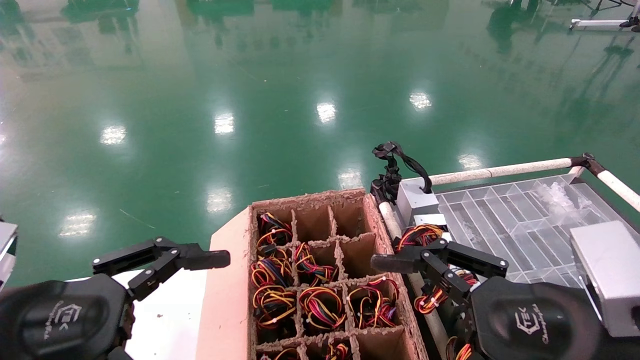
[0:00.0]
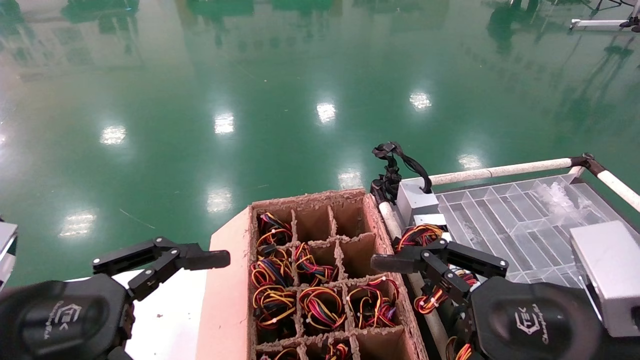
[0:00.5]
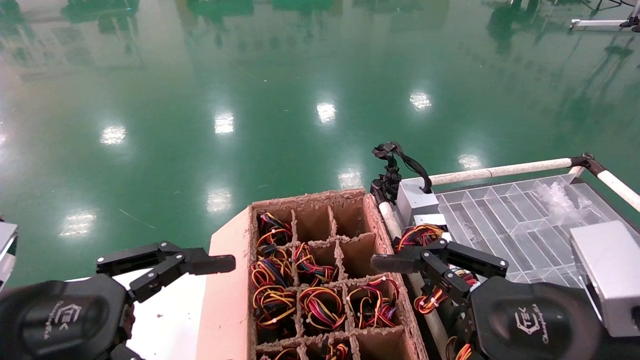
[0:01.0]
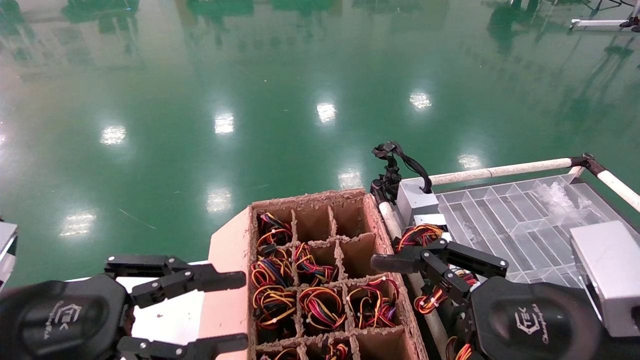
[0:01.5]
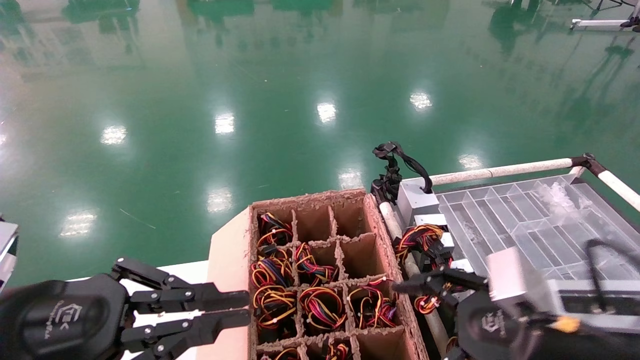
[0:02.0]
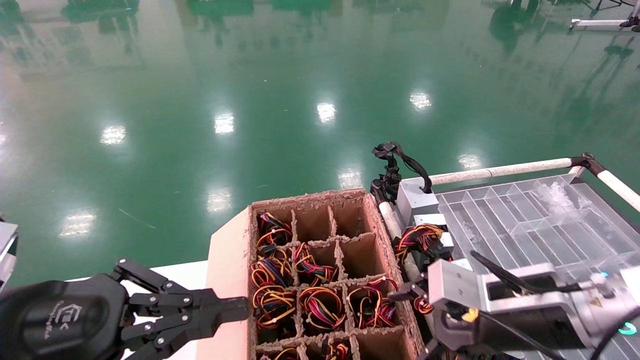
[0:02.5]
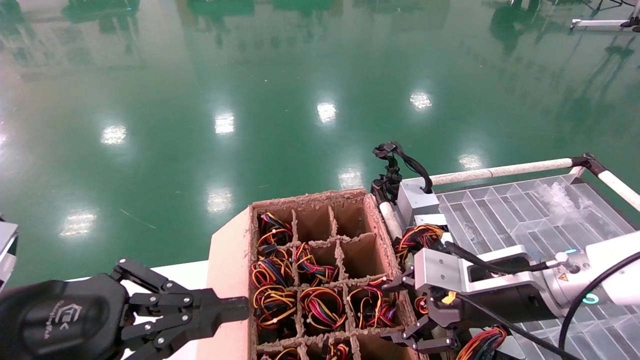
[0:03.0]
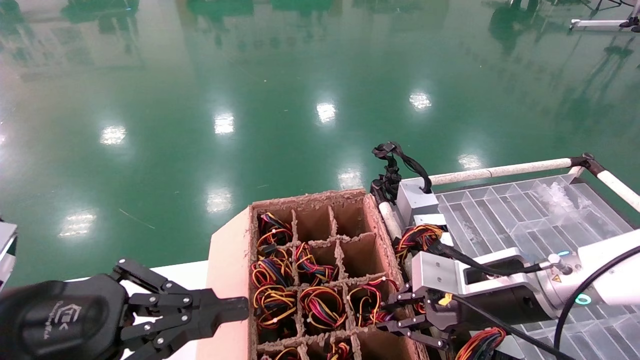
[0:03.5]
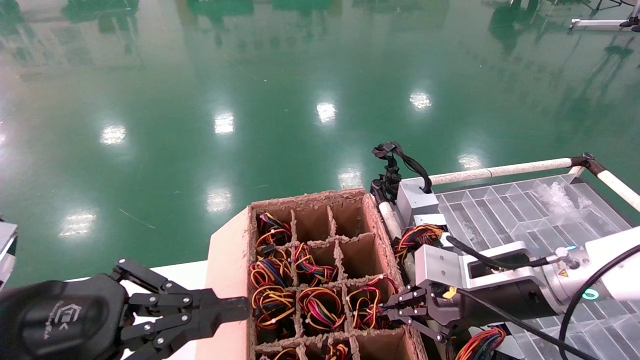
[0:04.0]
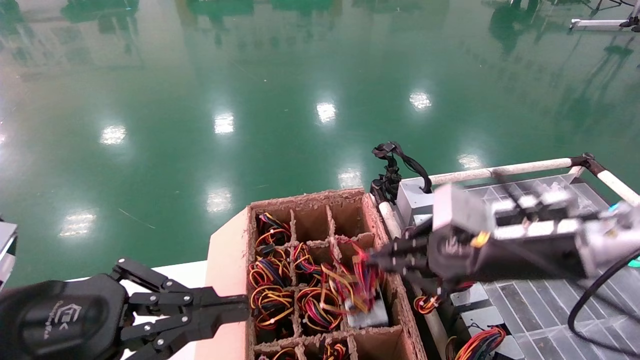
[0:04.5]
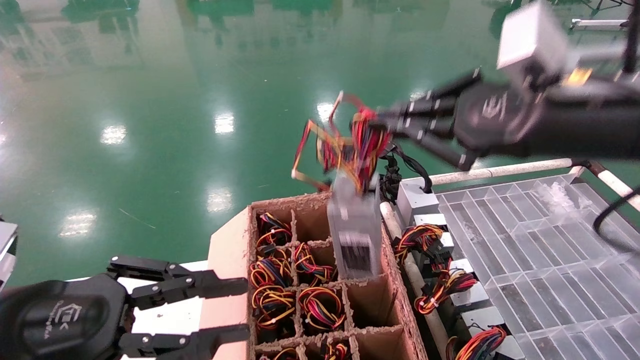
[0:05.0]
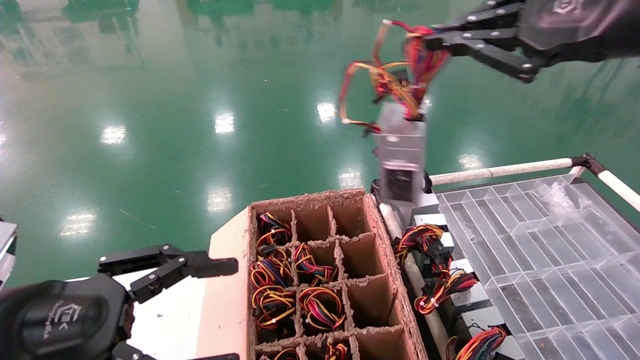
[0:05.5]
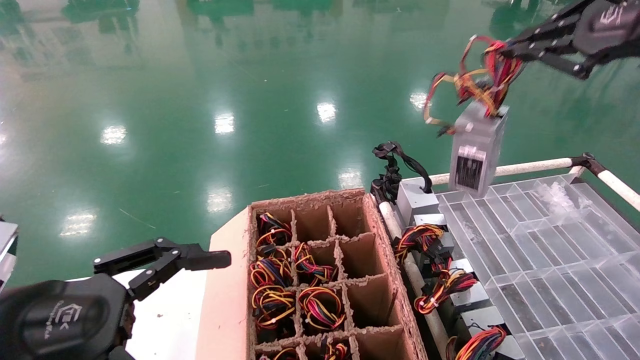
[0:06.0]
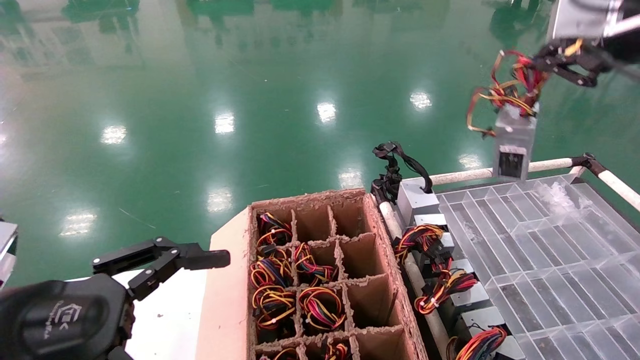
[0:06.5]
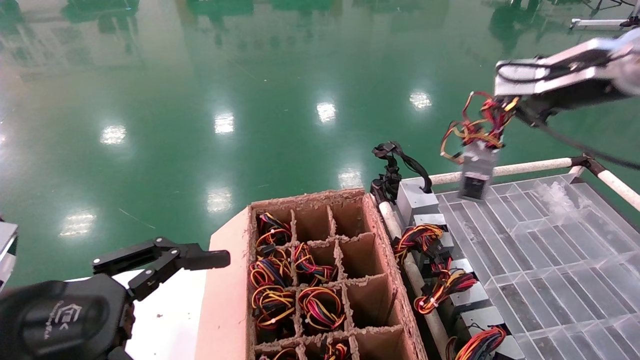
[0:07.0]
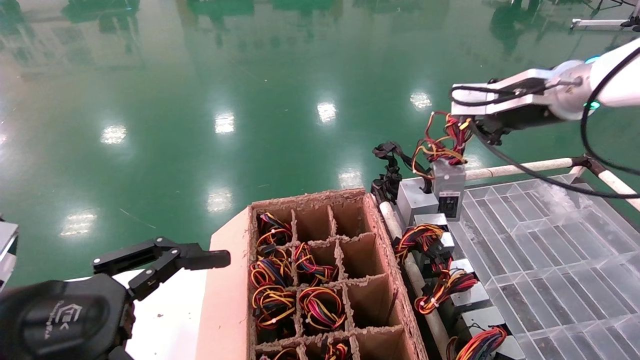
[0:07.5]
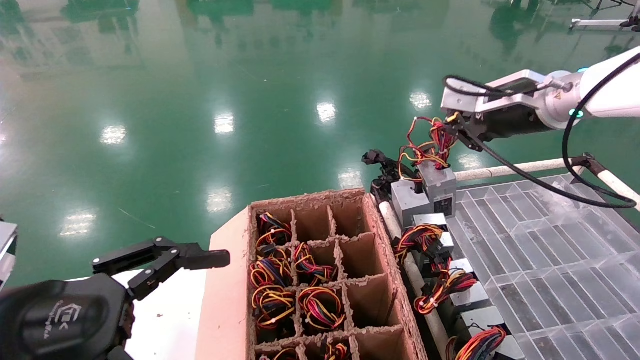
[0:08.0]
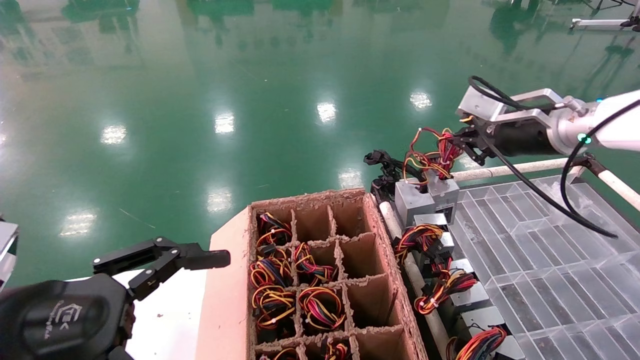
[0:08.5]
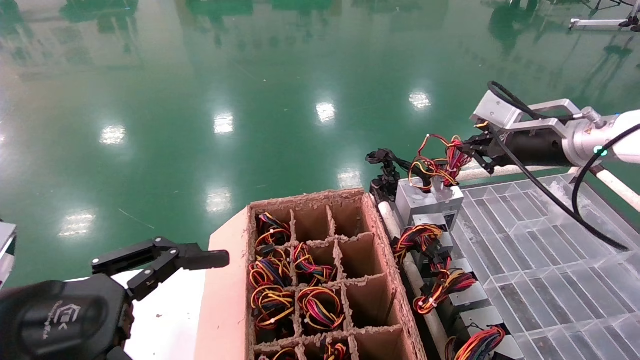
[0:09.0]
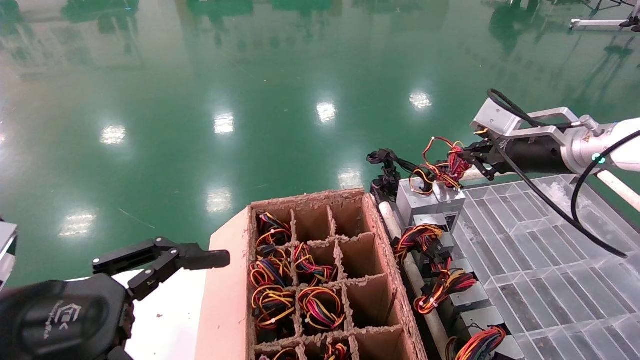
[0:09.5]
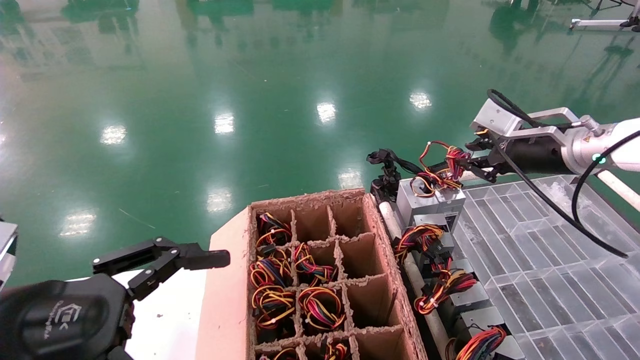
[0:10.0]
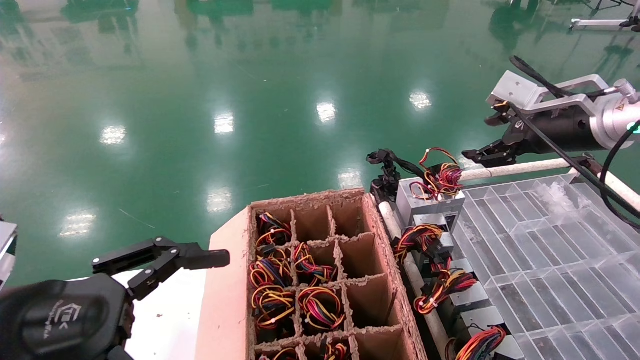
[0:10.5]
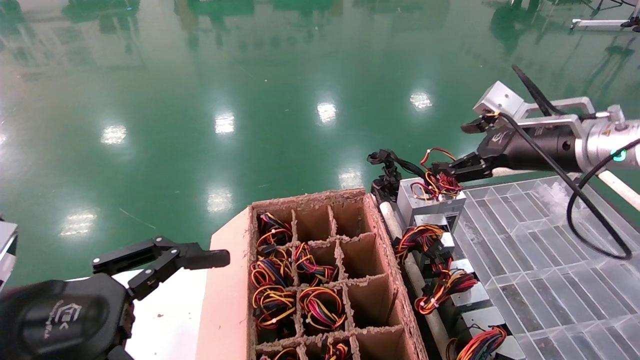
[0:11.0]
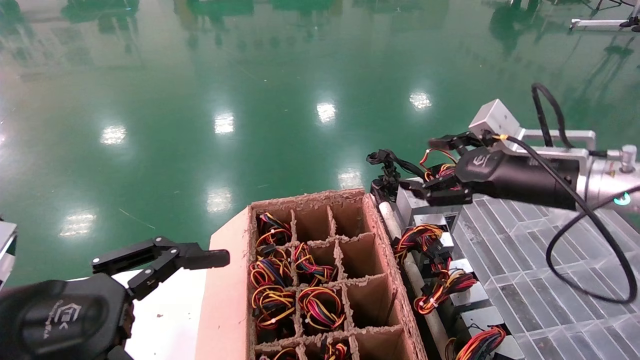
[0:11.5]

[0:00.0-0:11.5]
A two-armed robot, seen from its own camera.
Step, 0:02.5 to 0:04.0: Grab and lift the power supply from the large box.
Step, 0:04.5 to 0:09.5: Place the power supply on the operating table.
0:00.0 to 0:02.0: The left gripper closes, while the right gripper travels forward by about 5 cm.
0:02.0 to 0:04.0: The right gripper heads forward, covering about 10 cm, and closes.
0:04.0 to 0:06.0: The right gripper travels upward by about 30 cm; the left gripper opens up.
0:06.0 to 0:07.5: The right gripper shifts approximately 15 cm forward, downward and to the left.
0:07.5 to 0:09.5: The right gripper heads downward, covering about 10 cm.
0:09.5 to 0:11.5: The right gripper heads backward, covering some 5 cm, and opens its fingers.

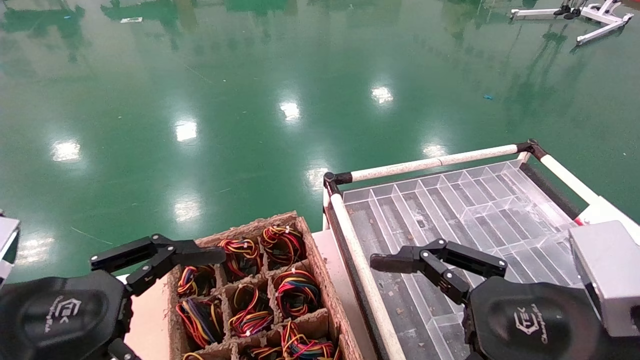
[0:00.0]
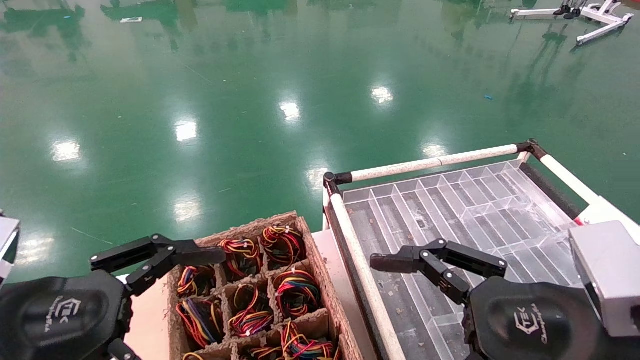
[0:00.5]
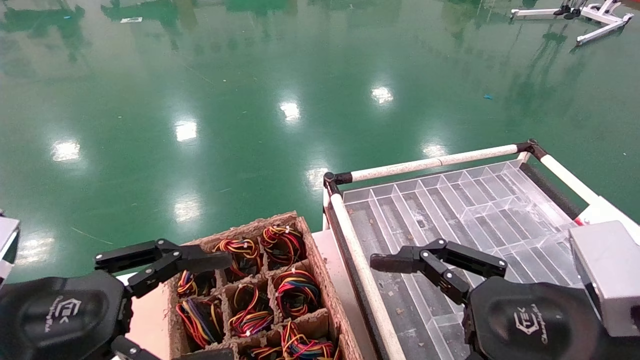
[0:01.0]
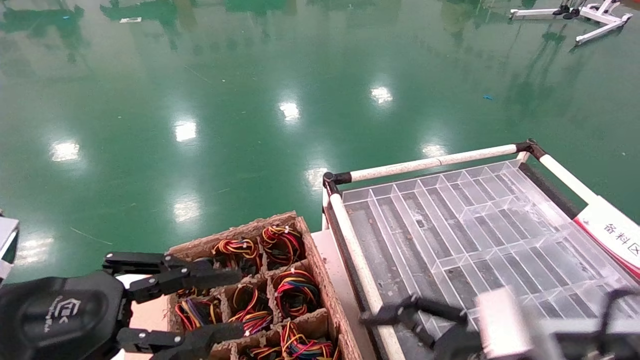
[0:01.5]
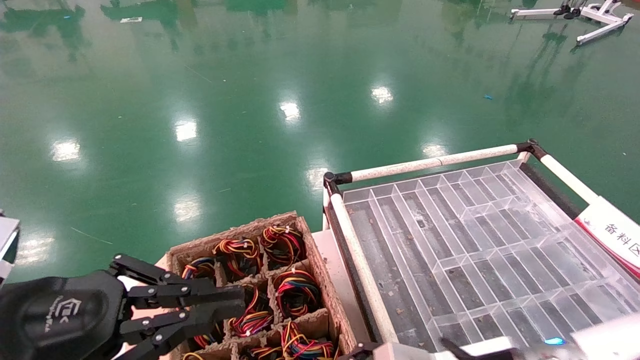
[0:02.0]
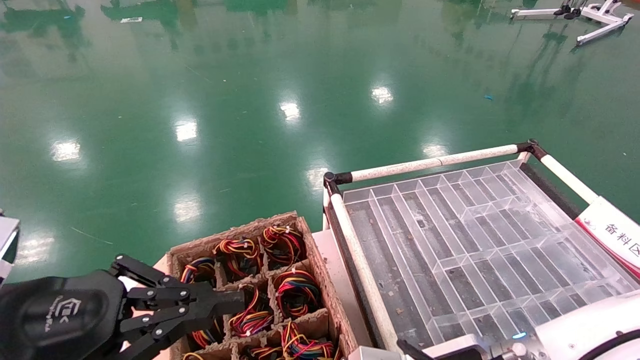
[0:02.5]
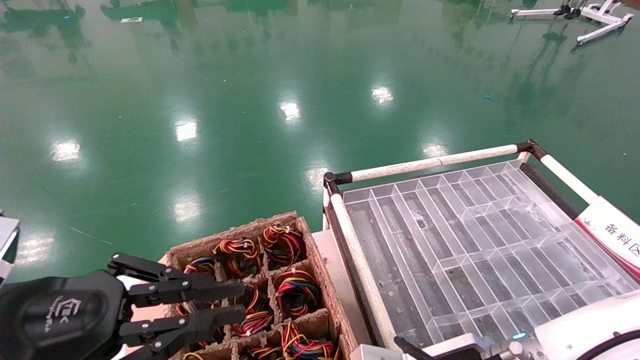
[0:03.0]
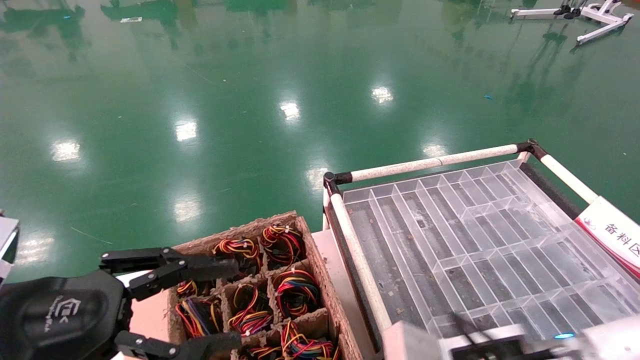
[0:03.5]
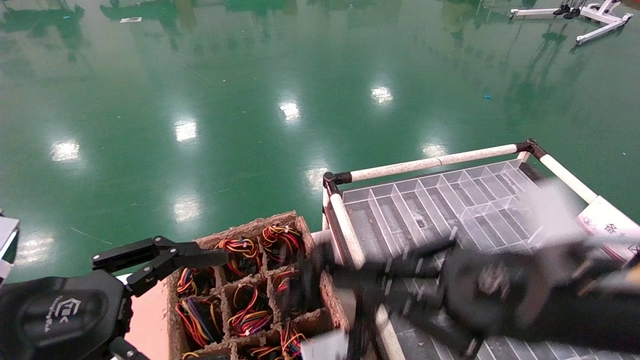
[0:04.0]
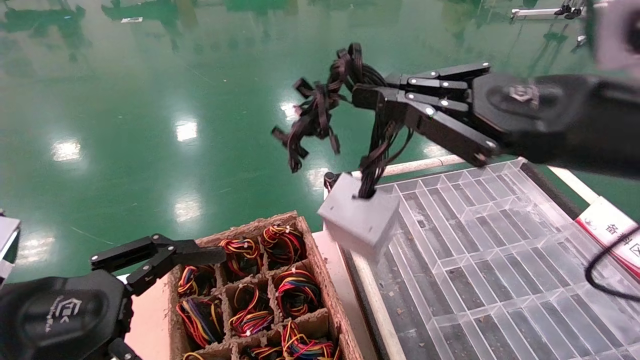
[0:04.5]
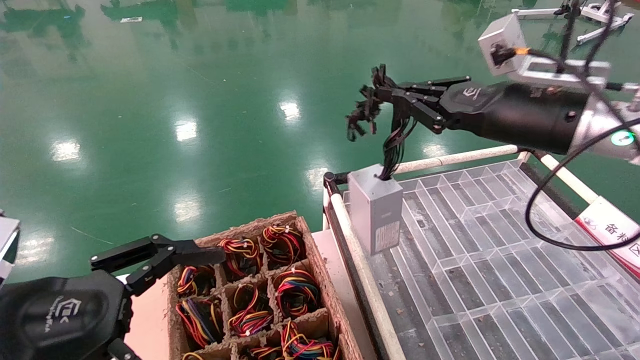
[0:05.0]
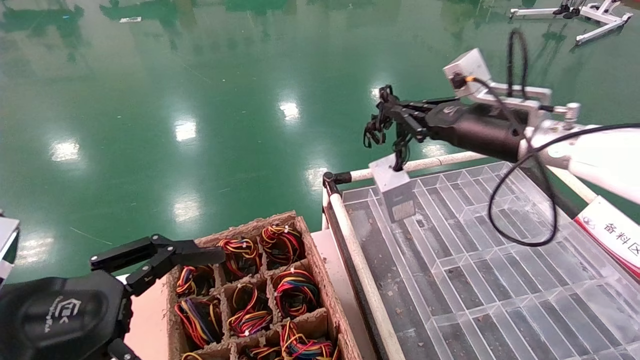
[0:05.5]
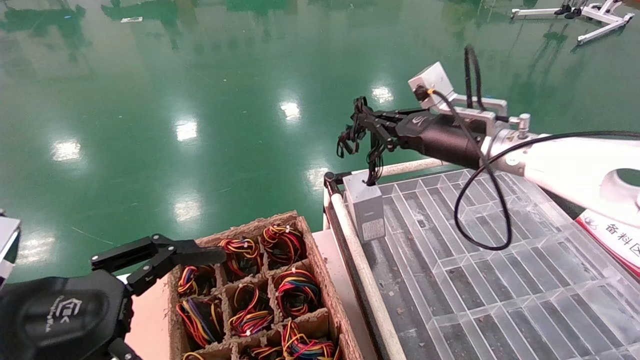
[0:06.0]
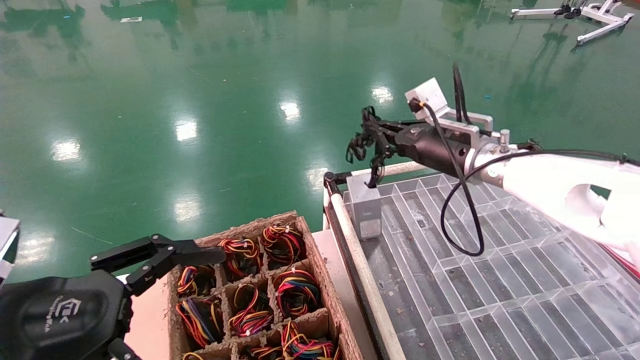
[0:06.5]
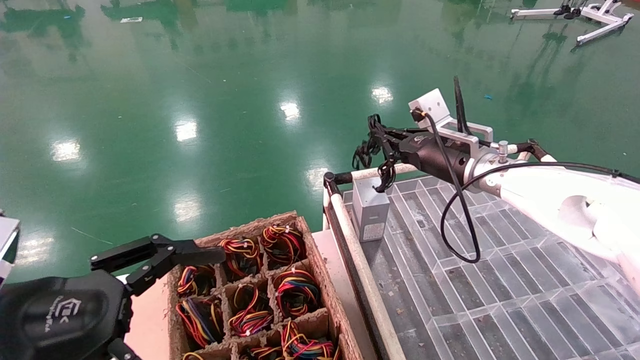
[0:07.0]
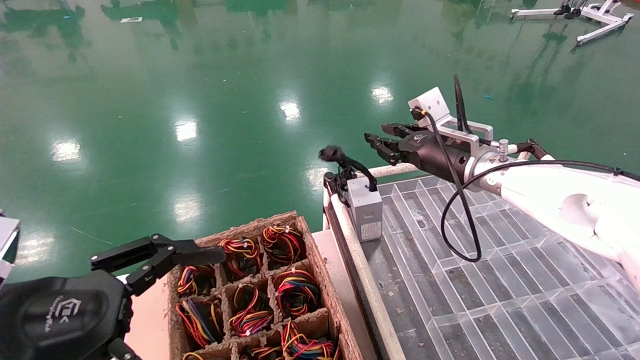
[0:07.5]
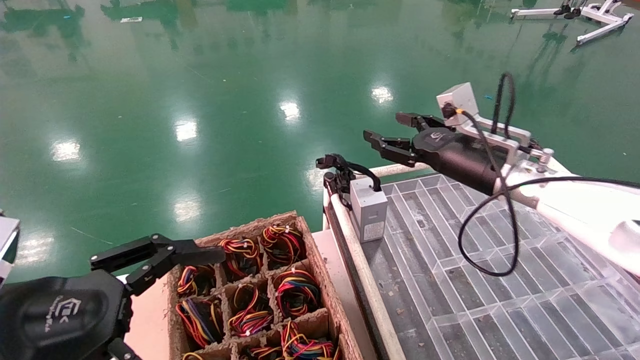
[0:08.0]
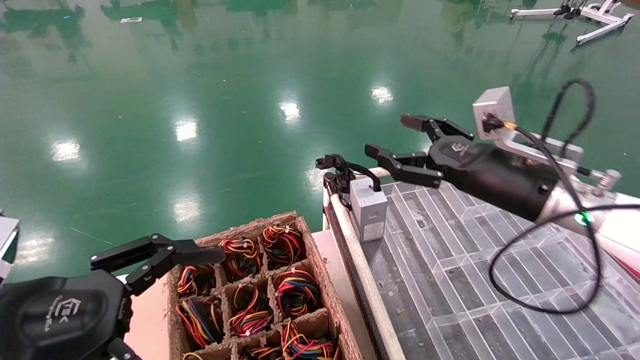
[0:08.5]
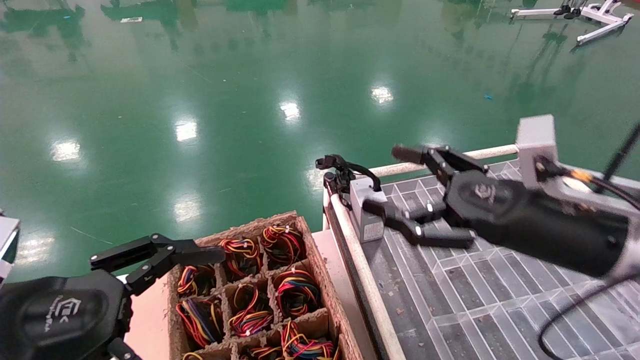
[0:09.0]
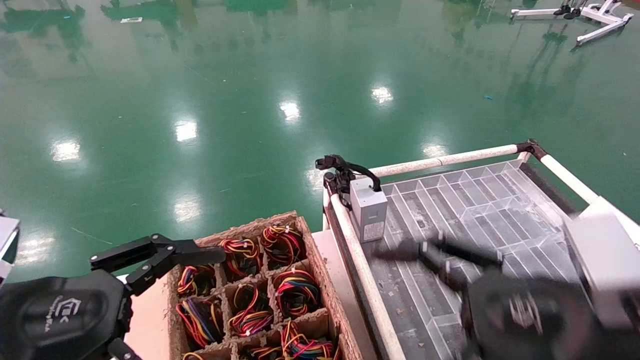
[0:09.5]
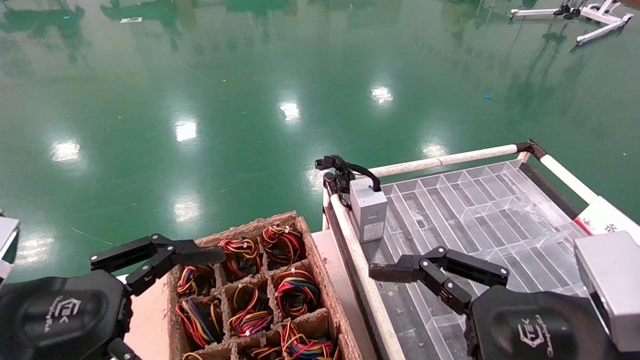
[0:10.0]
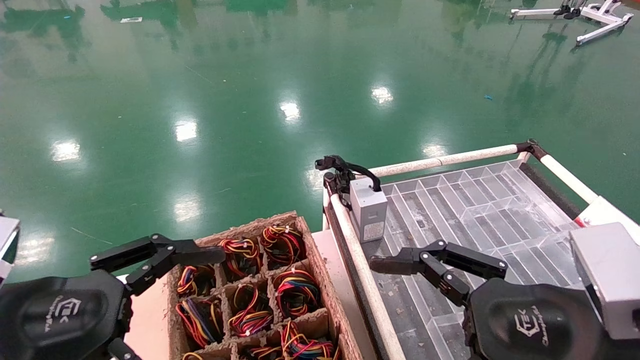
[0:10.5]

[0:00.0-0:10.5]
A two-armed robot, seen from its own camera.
Step, 0:01.0 to 0:03.0: Grab and lift the power supply from the large box.
Step, 0:03.5 to 0:07.0: Place the power supply on the operating table.
0:00.0 to 0:02.0: The right gripper moves downward, to the left and forward, roughly 10 cm. The left gripper closes.
0:02.0 to 0:04.0: The right gripper moves upward and to the right, roughly 15 cm, and closes its fingers, while the left gripper opens.
0:04.0 to 0:06.5: The right gripper heads forward, covering approximately 25 cm.
0:06.5 to 0:08.5: The right gripper travels backward by about 10 cm, and opens.
0:08.5 to 0:10.5: The right gripper goes roughly 20 cm backward.
